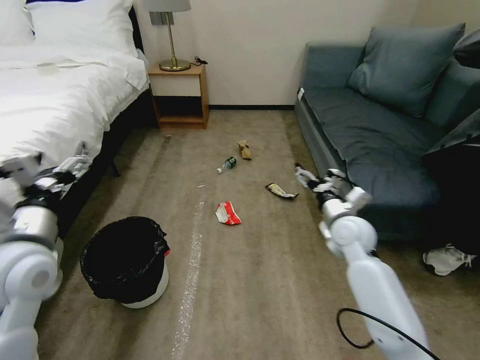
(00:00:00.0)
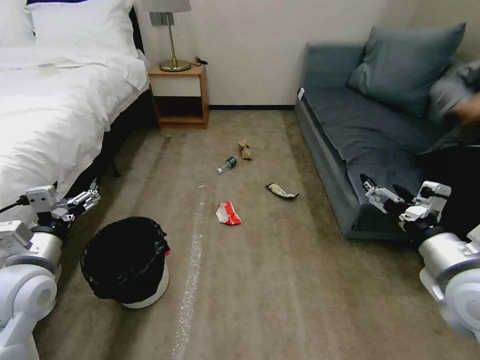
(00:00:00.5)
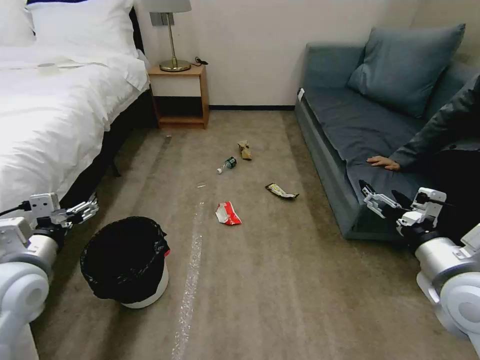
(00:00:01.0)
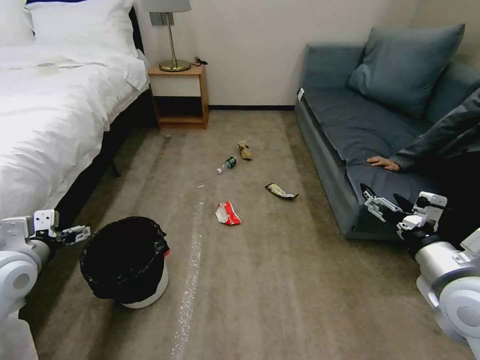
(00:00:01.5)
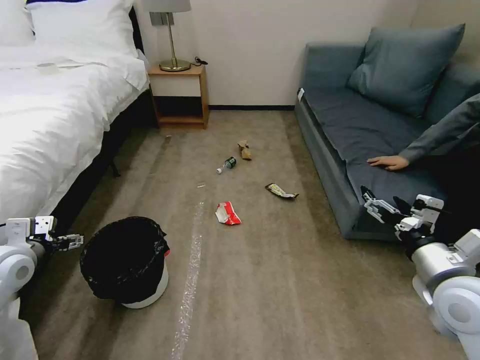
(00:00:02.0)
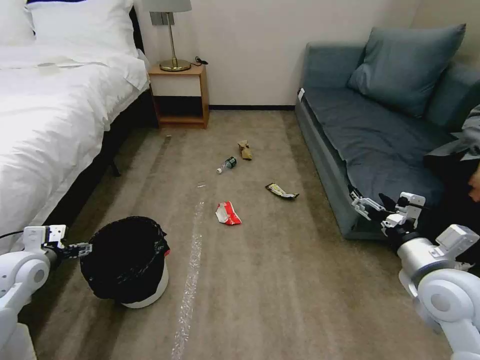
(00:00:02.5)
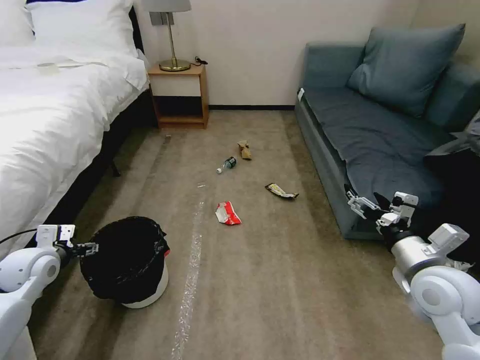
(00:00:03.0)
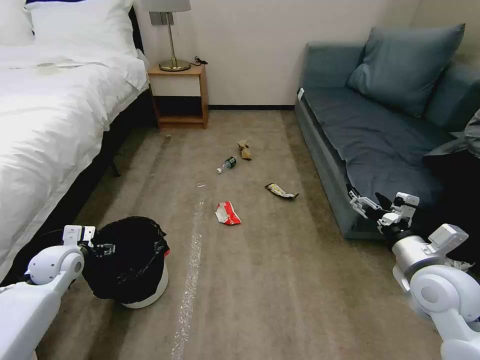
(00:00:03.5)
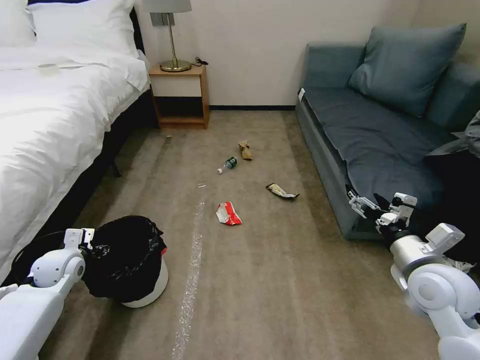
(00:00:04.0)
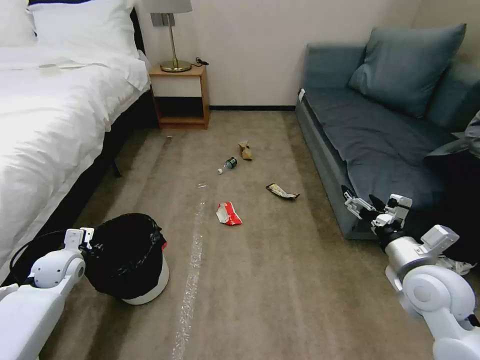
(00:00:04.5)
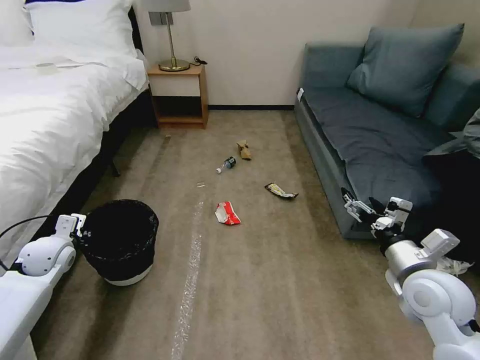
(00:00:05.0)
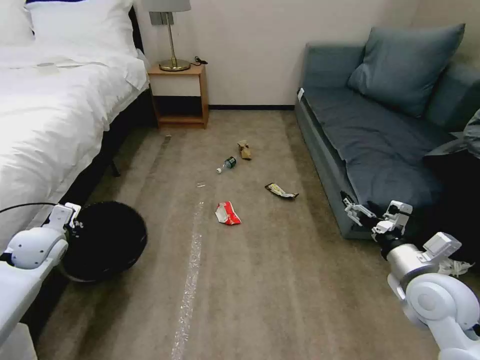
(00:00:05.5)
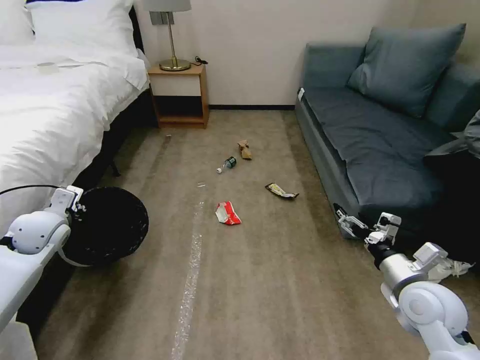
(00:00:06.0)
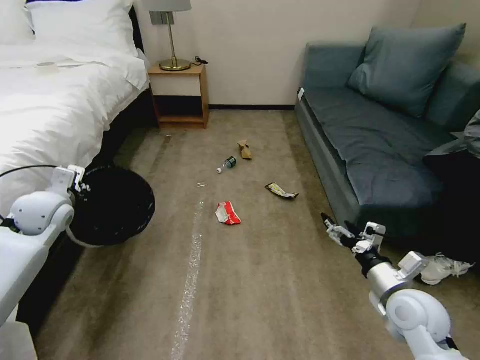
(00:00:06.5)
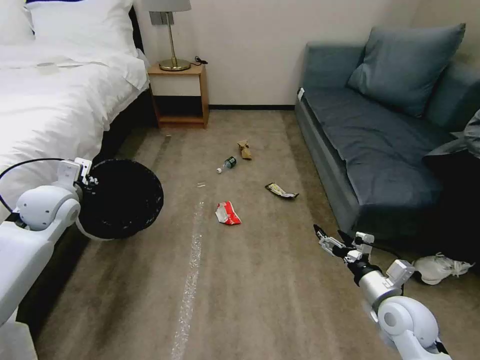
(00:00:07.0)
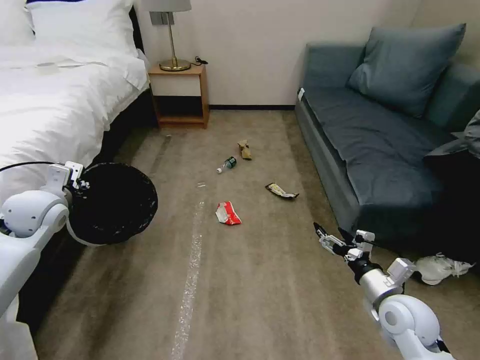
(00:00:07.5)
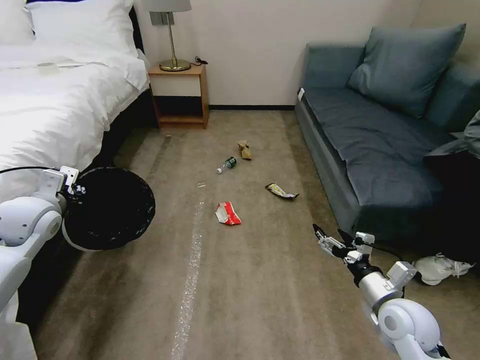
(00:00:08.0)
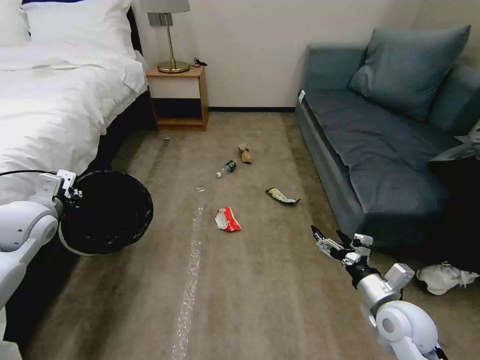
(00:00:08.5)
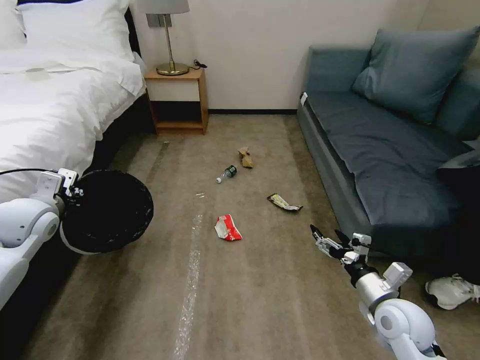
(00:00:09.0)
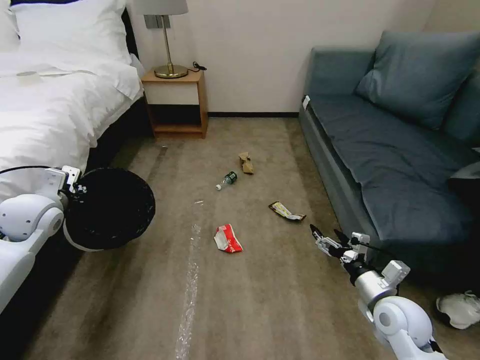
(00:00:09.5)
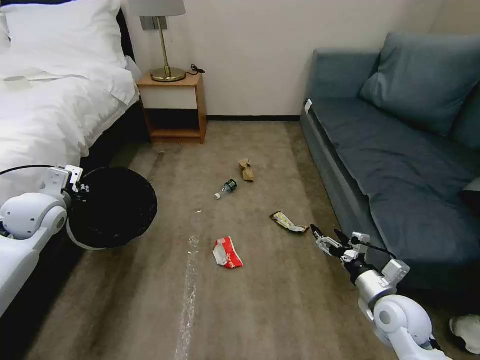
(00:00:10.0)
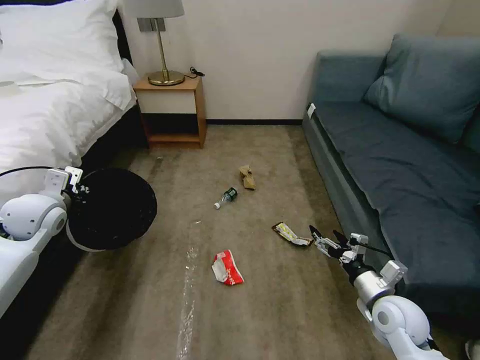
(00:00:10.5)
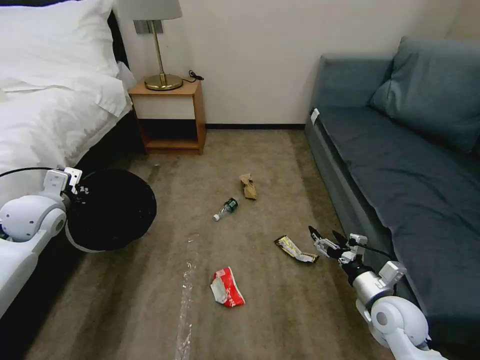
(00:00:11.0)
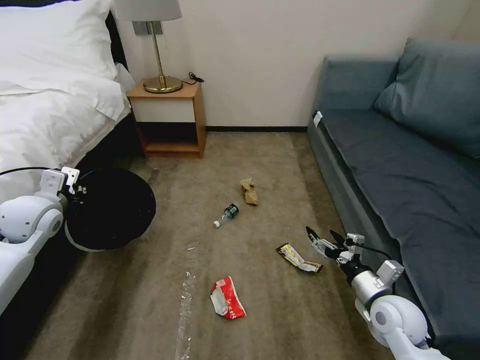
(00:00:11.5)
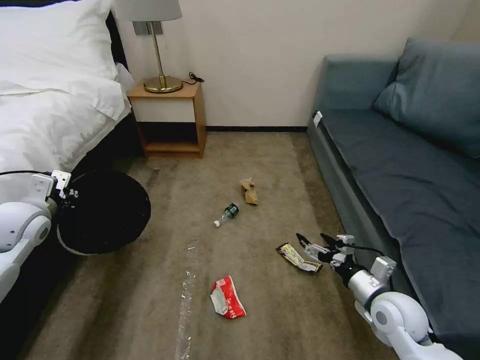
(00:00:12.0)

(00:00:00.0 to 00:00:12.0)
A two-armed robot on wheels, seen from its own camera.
Task of the whole recording: Pick up the trash bin, then pick up the garbage on the floor and place it into the trash bin.
00:00:02.0 - 00:00:04.0: The left gripper is displaced downward and forward by roughly 15 cm, and closes its fingers; the right gripper ends up some 5 cm from where it was.
00:00:04.0 - 00:00:06.0: The left gripper moves upward, about 10 cm, and closes.
00:00:06.0 - 00:00:08.0: The left gripper travels upward by about 5 cm. The right gripper goes about 5 cm downward.

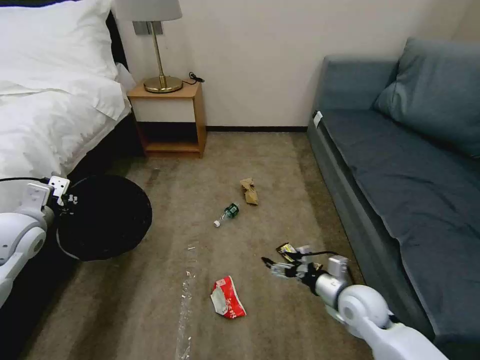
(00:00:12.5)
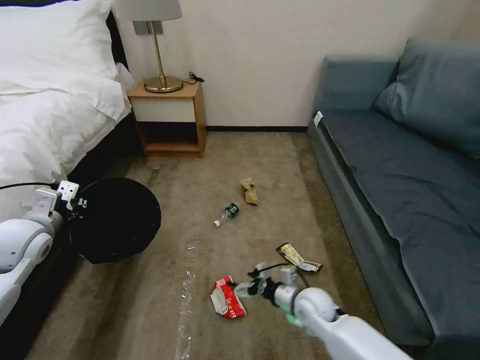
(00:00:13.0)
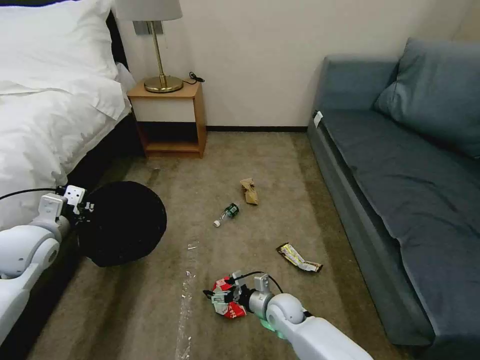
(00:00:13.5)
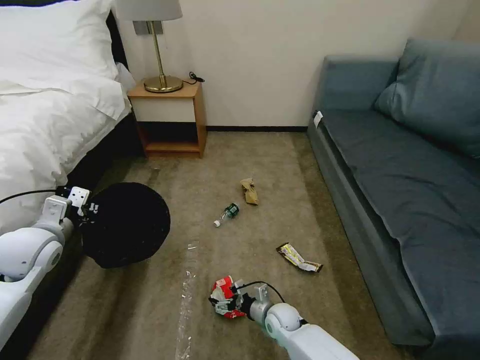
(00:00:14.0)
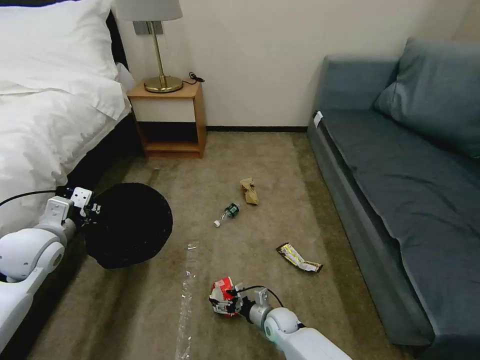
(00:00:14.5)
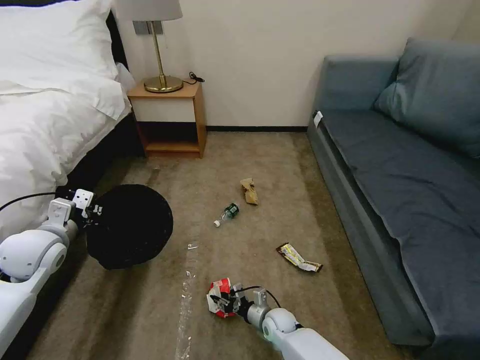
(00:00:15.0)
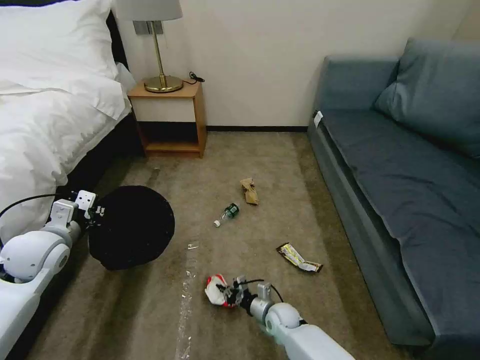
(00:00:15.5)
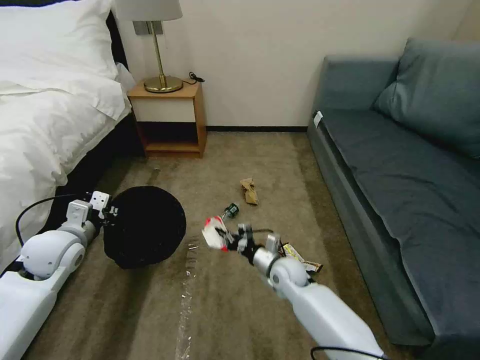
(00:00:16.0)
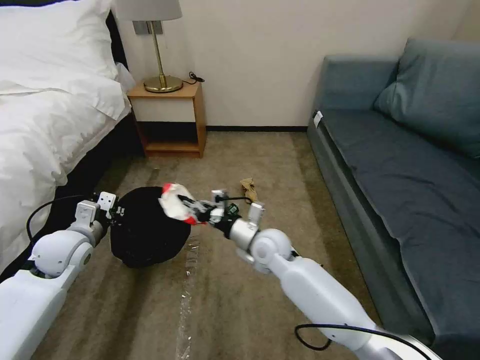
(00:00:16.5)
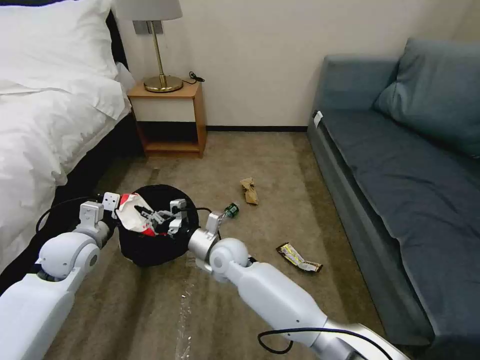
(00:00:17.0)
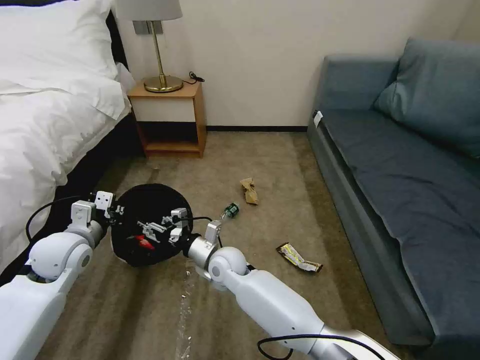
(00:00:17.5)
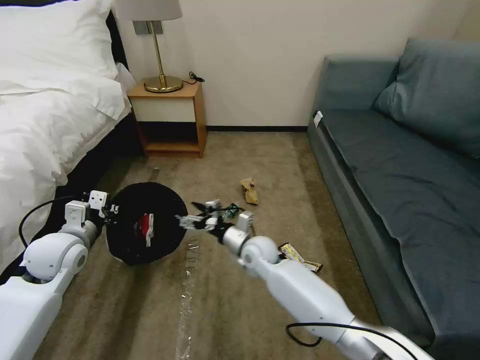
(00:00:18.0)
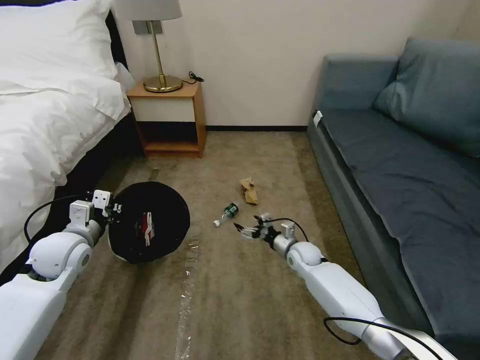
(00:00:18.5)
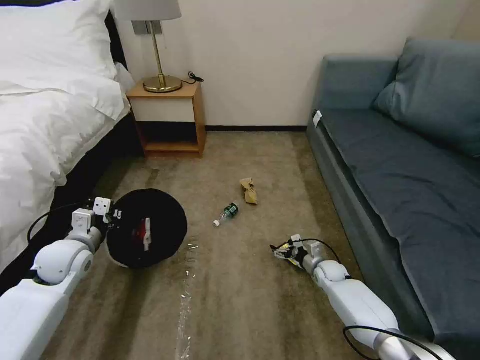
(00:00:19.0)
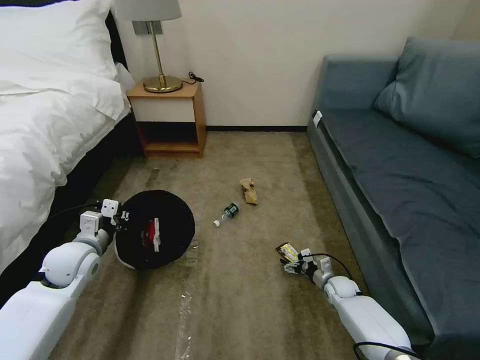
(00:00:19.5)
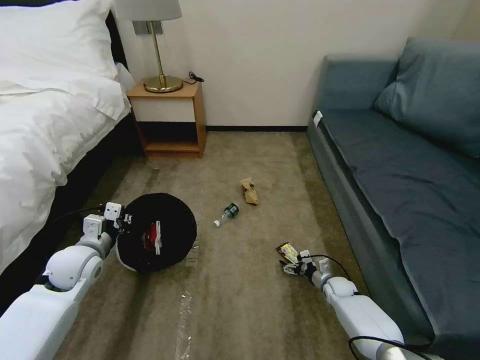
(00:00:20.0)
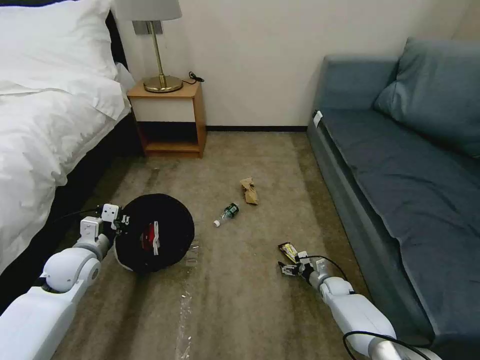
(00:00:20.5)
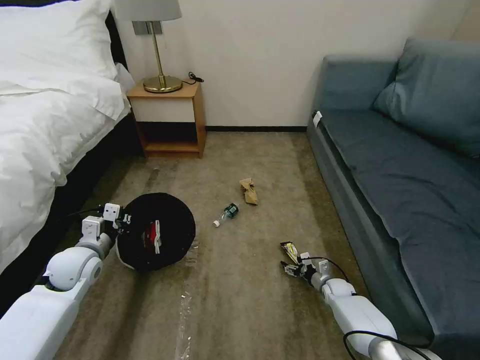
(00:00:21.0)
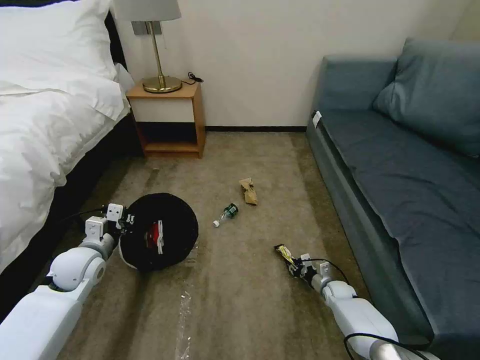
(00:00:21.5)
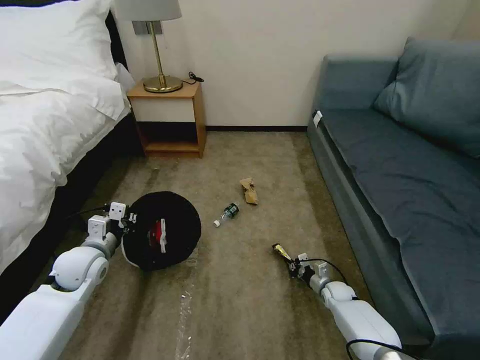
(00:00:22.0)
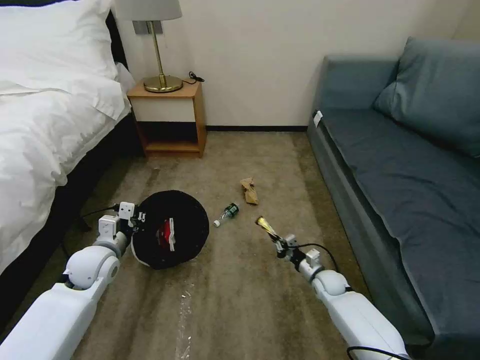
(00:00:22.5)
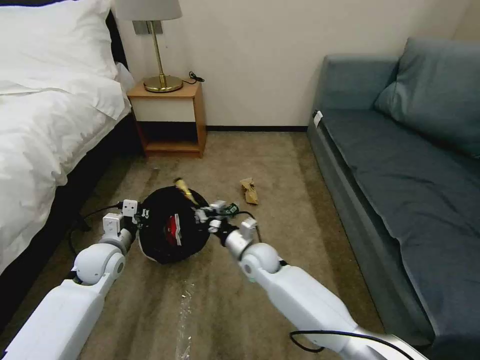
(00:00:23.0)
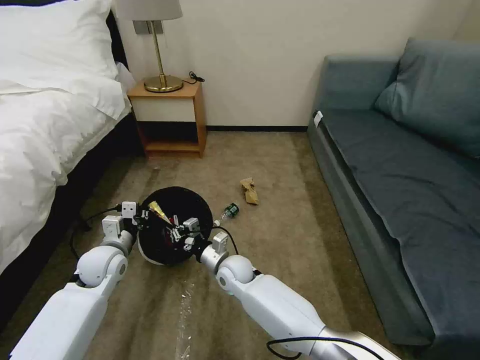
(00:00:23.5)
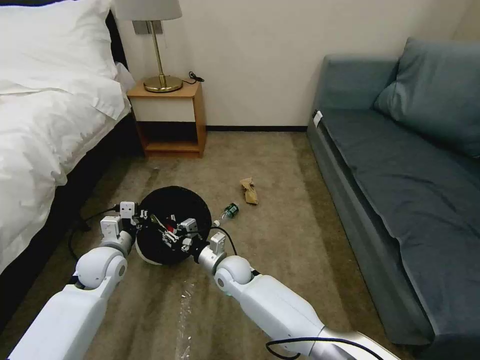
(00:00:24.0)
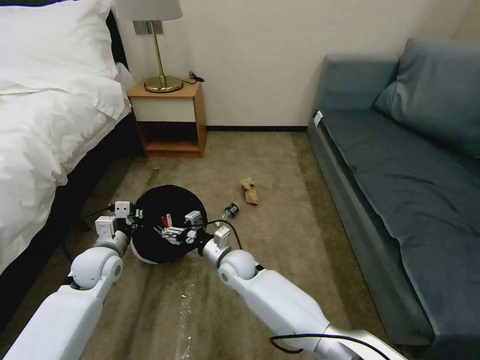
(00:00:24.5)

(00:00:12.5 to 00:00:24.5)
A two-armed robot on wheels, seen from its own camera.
Task of the whole recording: Pick up the trash bin, then pick up the garbage on the floor and place it into the trash bin.
00:00:12.5 - 00:00:14.5: The right gripper travels downward and to the left by about 25 cm.
00:00:14.5 - 00:00:16.5: The left gripper moves approximately 5 cm; the right gripper heads upward, covering some 30 cm, and closes.
00:00:16.5 - 00:00:18.5: The right gripper travels downward and to the right by roughly 20 cm, and opens.
00:00:18.5 - 00:00:20.5: The left gripper travels downward by about 5 cm. Meanwhile the right gripper heads downward, to the right and backward, covering approximately 20 cm.
00:00:20.5 - 00:00:22.5: The right gripper is displaced upward and to the left by approximately 10 cm, and closes up.
00:00:22.5 - 00:00:24.5: The right gripper moves to the left and upward, approximately 30 cm, and opens up.

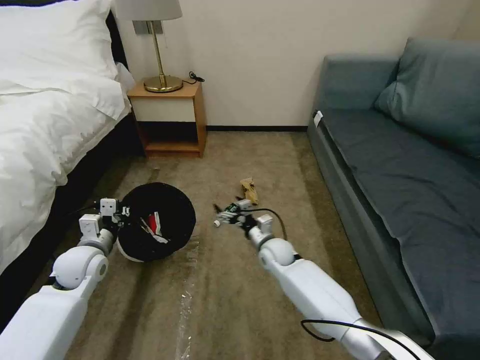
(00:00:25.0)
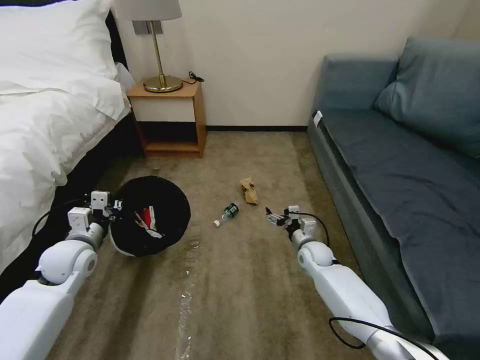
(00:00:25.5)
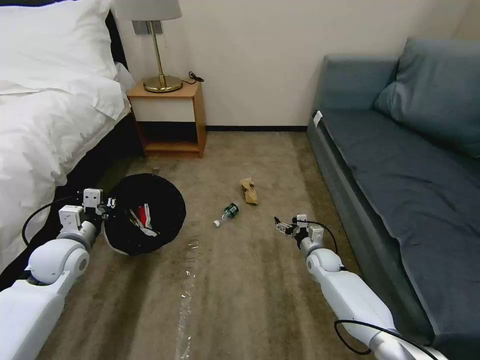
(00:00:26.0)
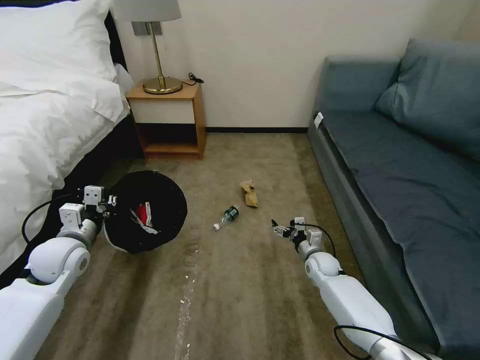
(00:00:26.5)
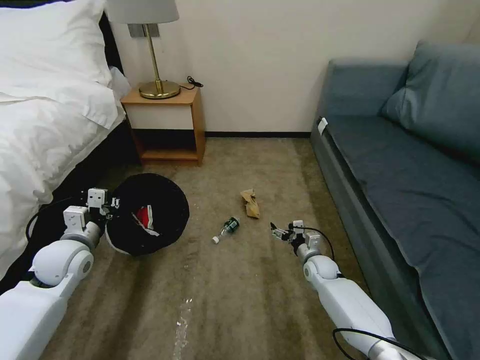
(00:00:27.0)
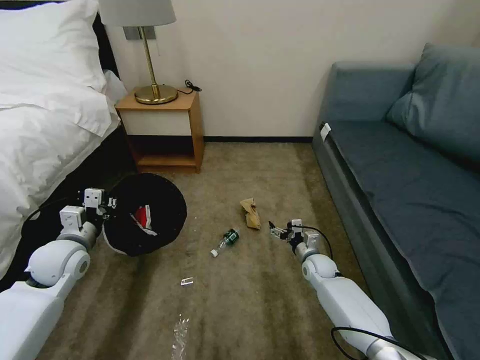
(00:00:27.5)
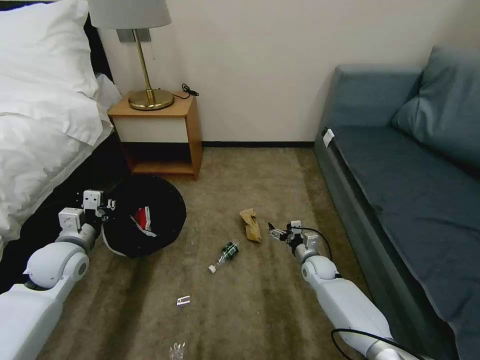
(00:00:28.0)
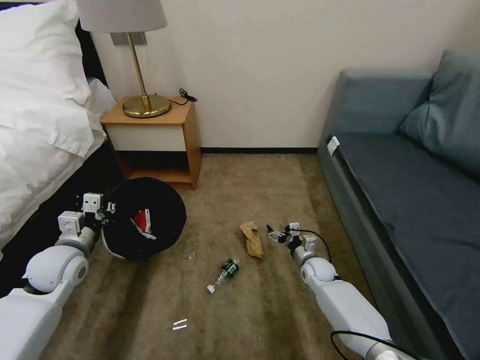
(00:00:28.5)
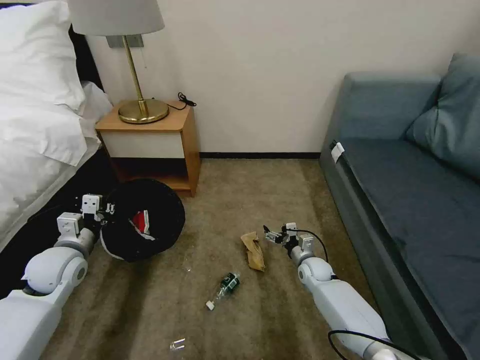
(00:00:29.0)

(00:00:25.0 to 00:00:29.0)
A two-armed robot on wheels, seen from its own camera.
Task of the whole recording: Pick up the trash bin, then pick up the garbage on the floor and place it into the trash bin.
00:00:25.0 - 00:00:27.0: The right gripper heads to the right and downward, covering approximately 15 cm.
